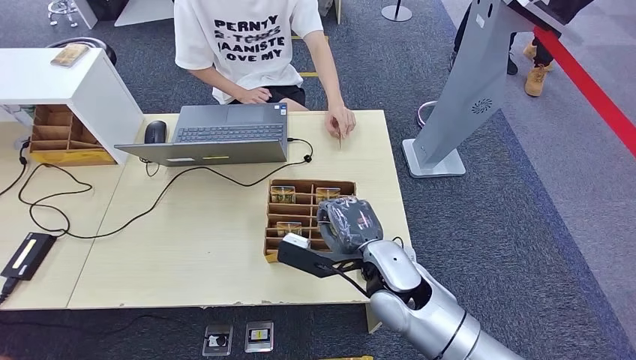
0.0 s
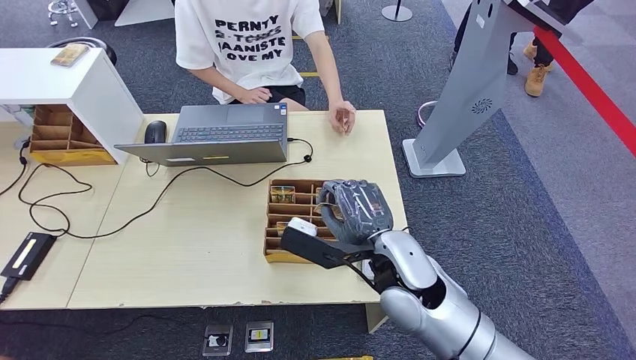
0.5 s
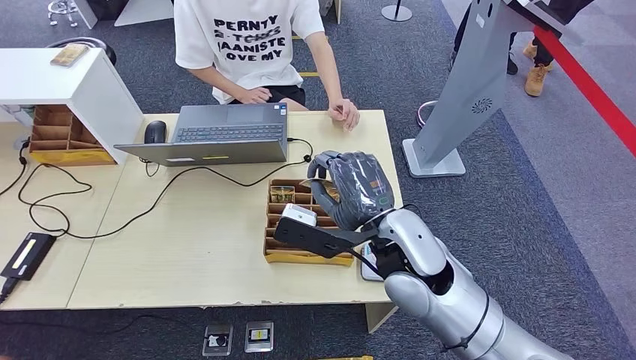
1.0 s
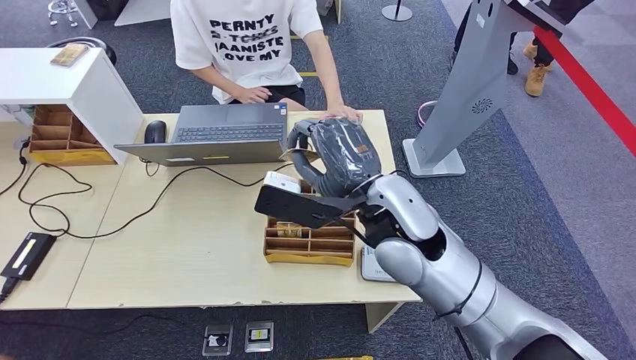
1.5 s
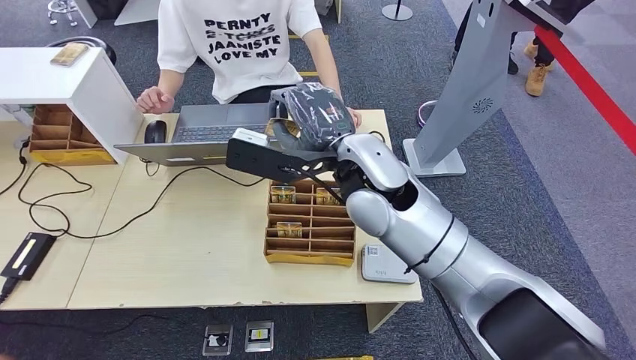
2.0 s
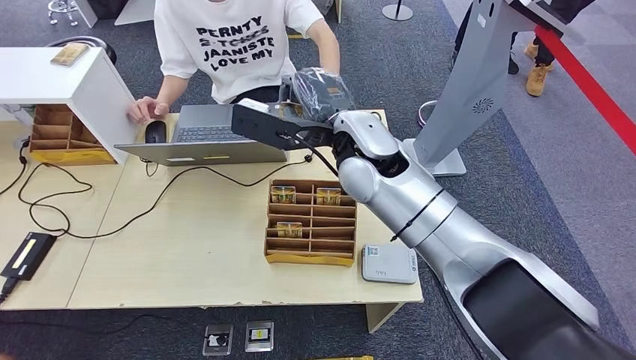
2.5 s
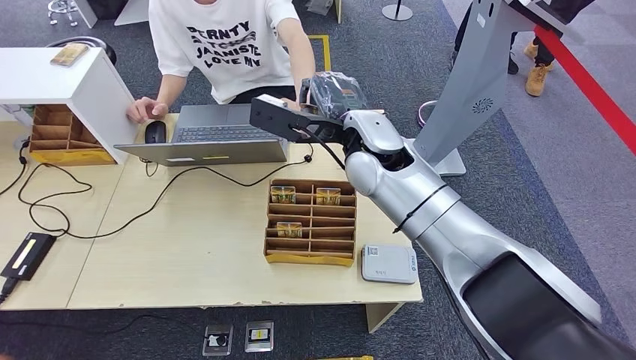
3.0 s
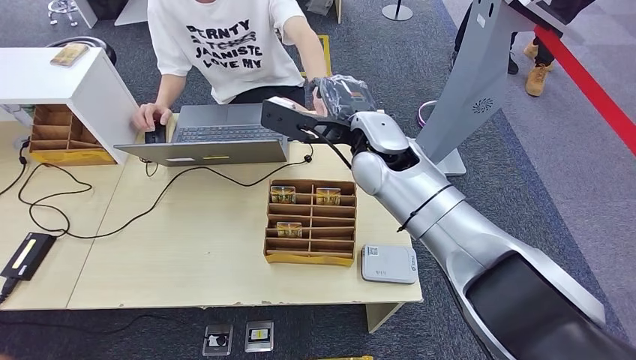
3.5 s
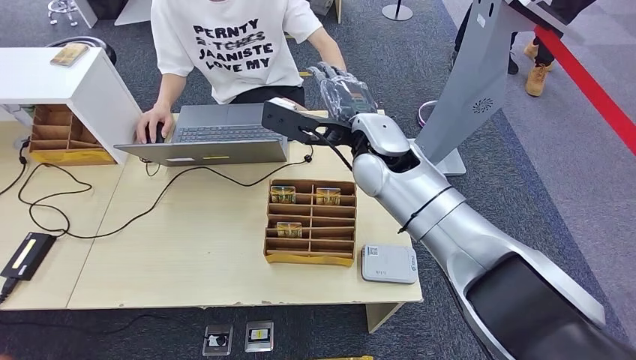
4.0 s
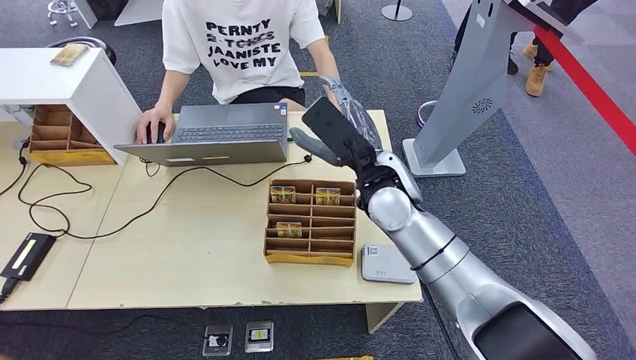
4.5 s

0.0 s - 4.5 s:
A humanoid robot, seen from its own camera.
Step, 1.0 s - 4.5 s: Hand the room key to the person.
2.0 s - 4.5 s: The right hand shifts approximately 5 cm downward.
